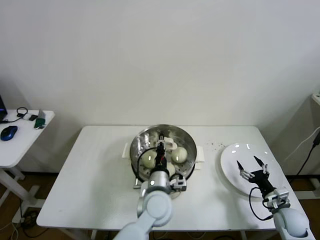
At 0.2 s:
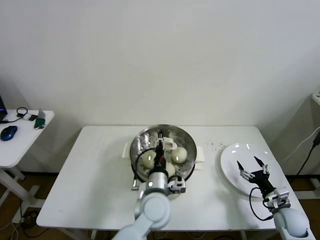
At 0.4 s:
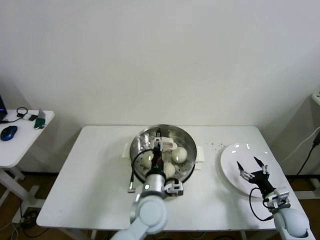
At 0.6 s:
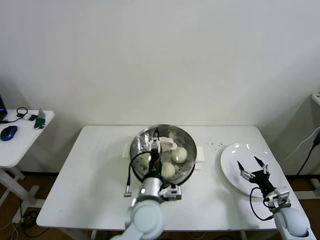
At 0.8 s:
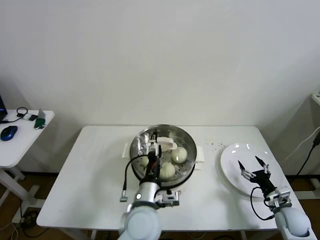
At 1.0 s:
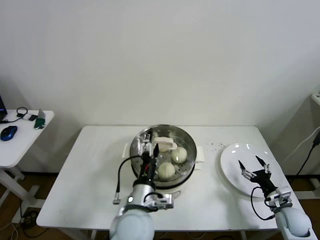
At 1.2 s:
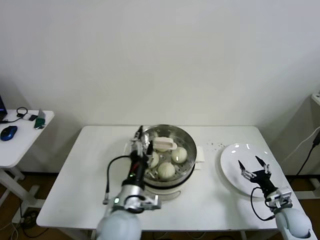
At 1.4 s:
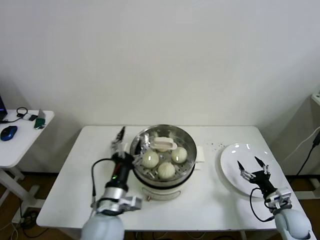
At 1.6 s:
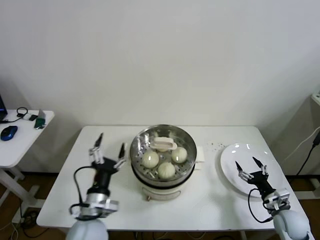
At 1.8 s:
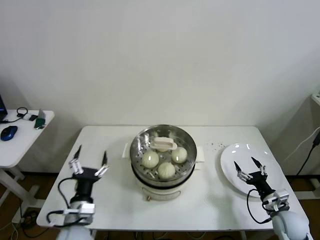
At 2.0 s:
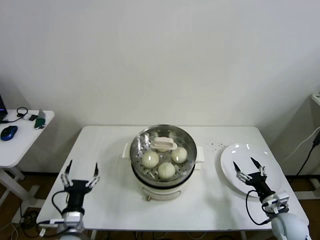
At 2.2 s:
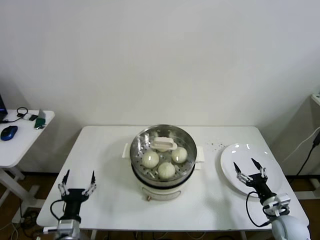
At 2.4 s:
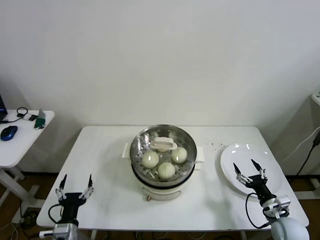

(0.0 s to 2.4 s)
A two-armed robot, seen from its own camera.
0.0 s - 1.2 s: The left gripper is displaced to the left and backward by approximately 10 cm, and opens its fingers.
1.2 s - 2.4 s: The left gripper heads to the left and downward, covering approximately 25 cm.
